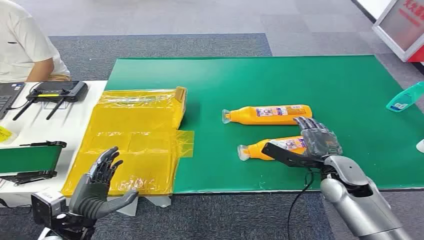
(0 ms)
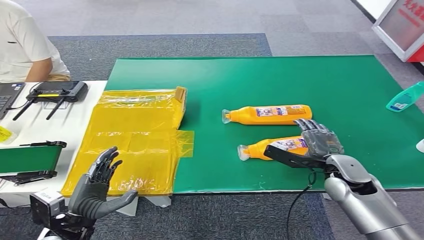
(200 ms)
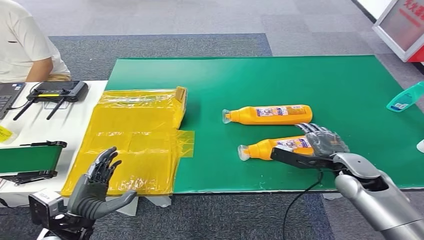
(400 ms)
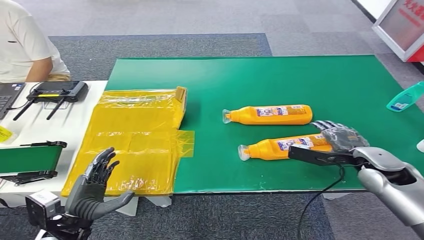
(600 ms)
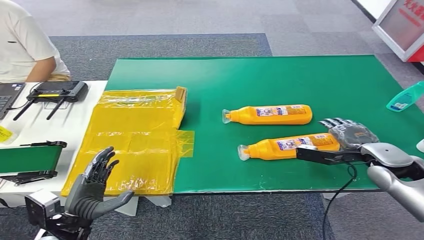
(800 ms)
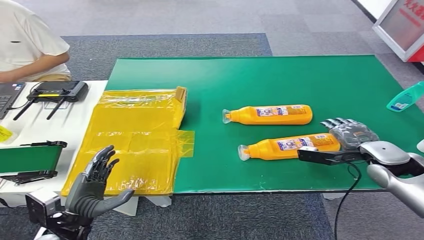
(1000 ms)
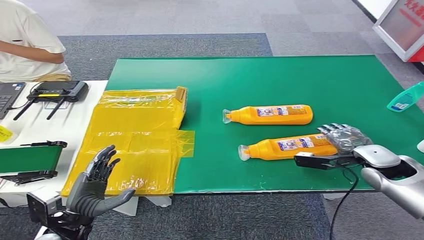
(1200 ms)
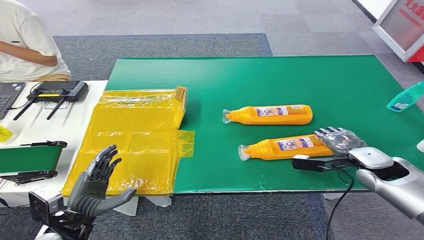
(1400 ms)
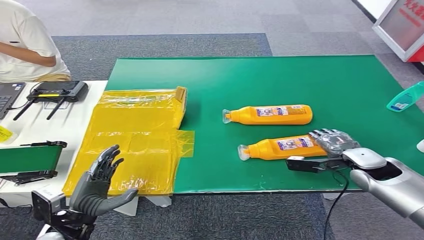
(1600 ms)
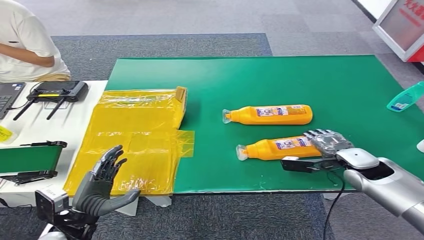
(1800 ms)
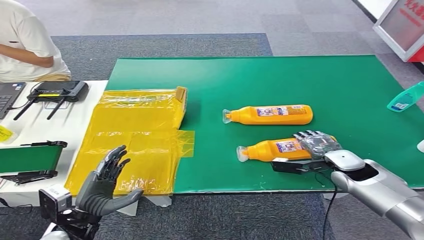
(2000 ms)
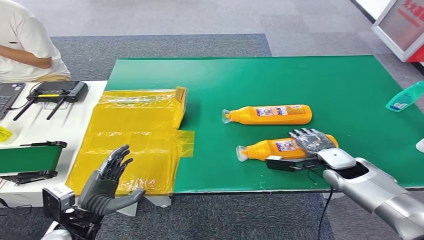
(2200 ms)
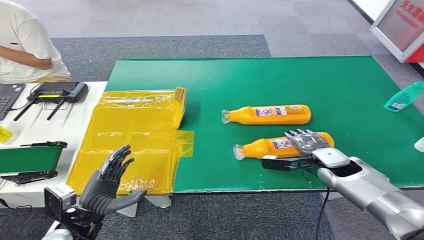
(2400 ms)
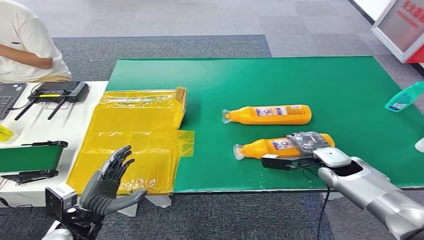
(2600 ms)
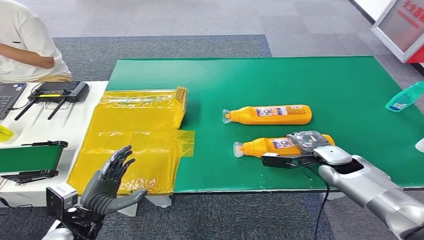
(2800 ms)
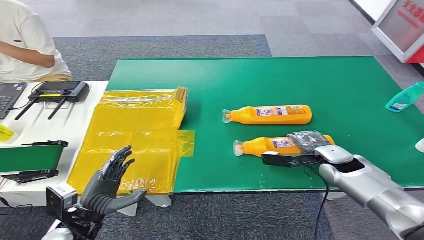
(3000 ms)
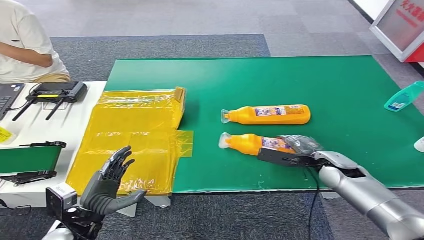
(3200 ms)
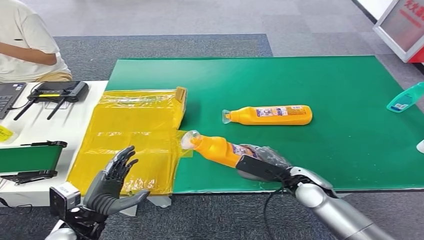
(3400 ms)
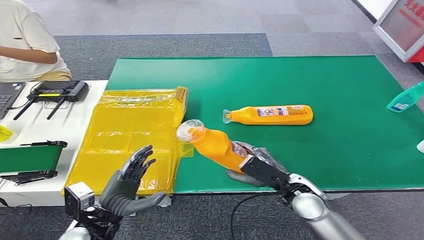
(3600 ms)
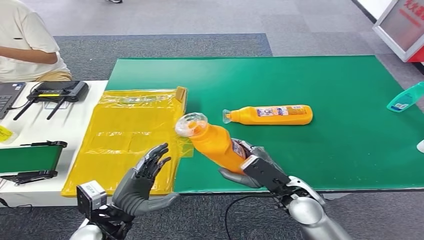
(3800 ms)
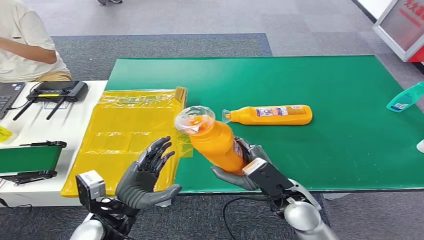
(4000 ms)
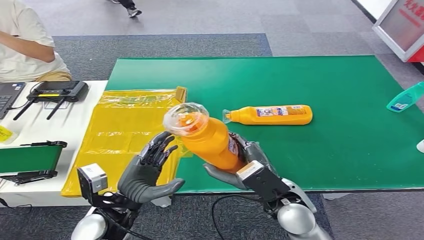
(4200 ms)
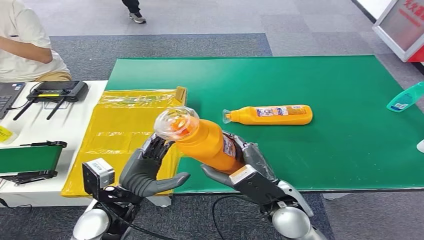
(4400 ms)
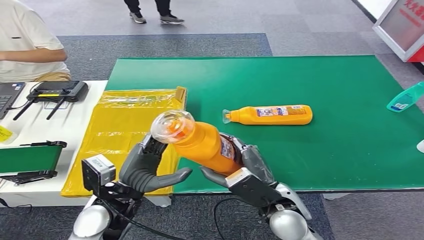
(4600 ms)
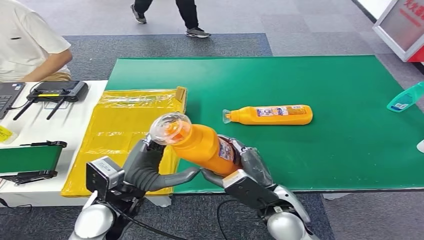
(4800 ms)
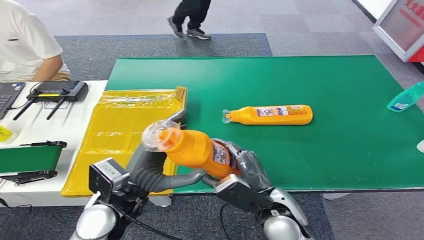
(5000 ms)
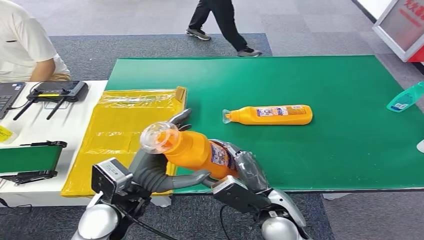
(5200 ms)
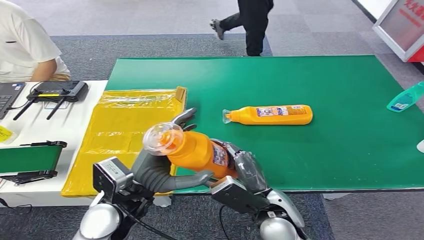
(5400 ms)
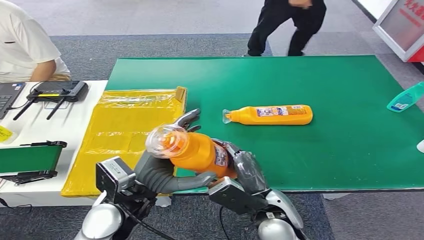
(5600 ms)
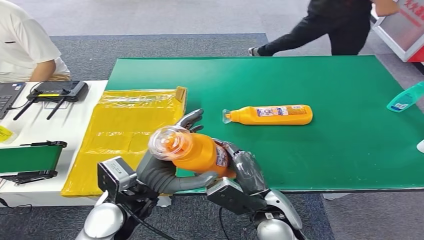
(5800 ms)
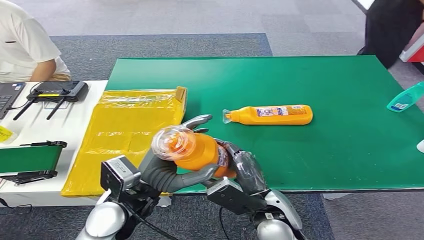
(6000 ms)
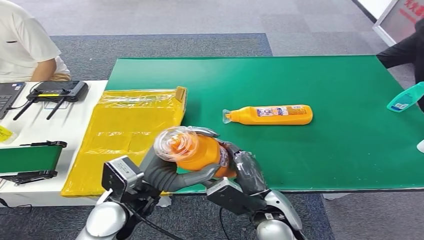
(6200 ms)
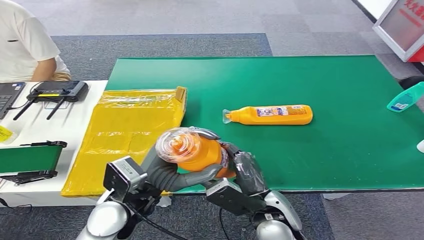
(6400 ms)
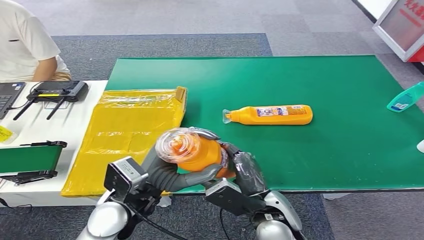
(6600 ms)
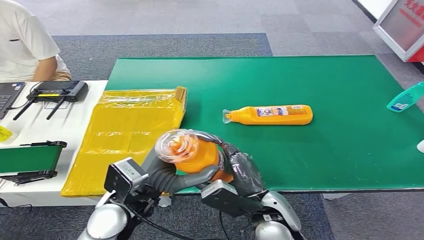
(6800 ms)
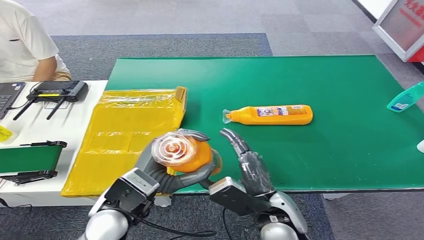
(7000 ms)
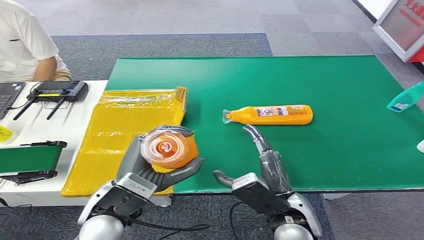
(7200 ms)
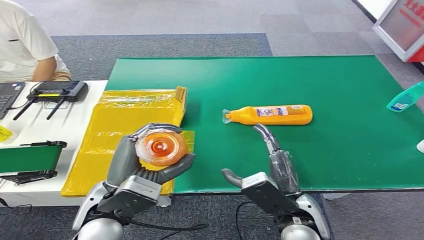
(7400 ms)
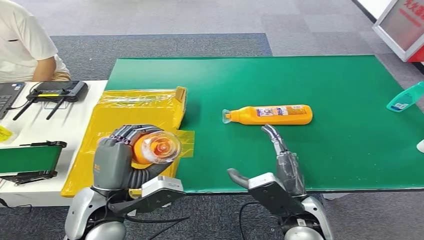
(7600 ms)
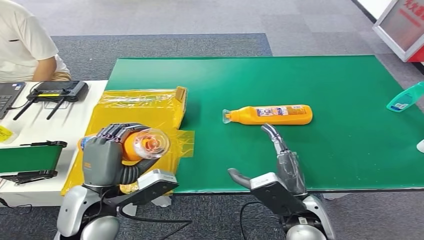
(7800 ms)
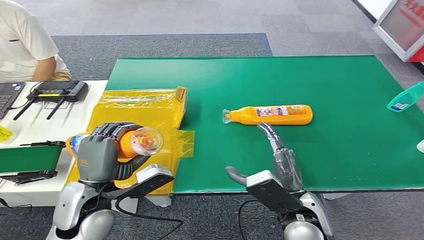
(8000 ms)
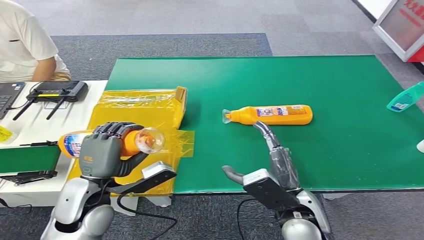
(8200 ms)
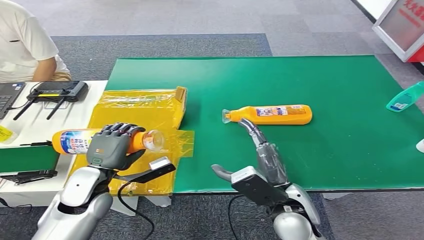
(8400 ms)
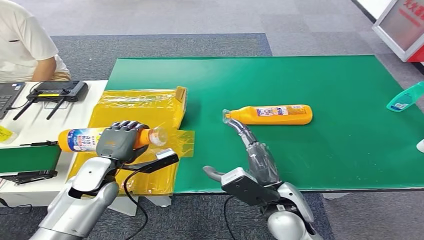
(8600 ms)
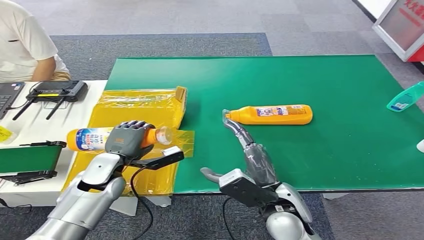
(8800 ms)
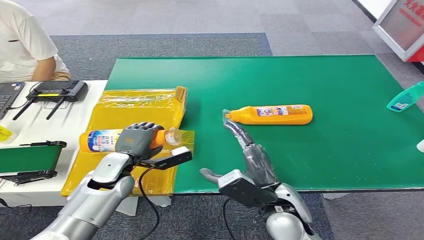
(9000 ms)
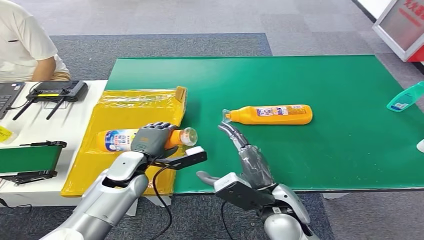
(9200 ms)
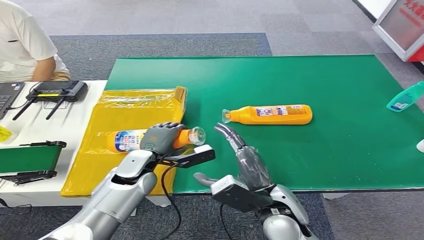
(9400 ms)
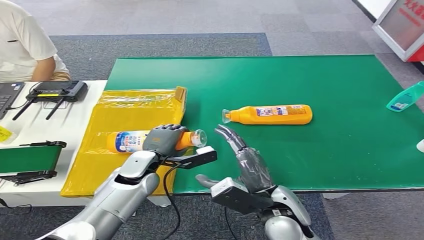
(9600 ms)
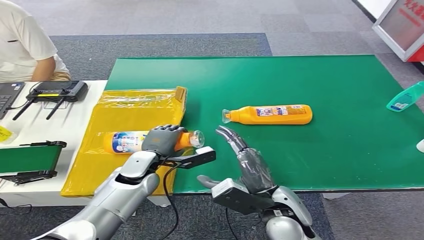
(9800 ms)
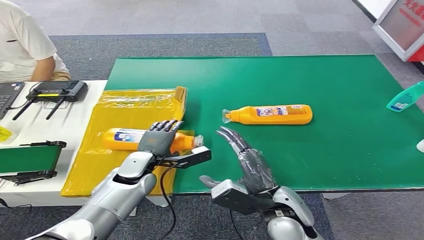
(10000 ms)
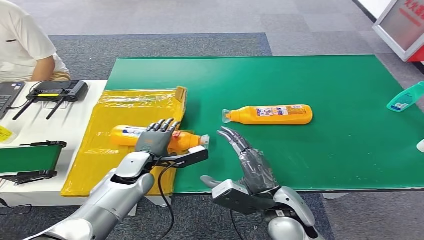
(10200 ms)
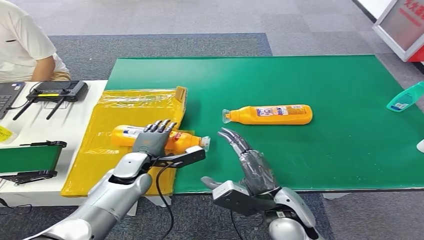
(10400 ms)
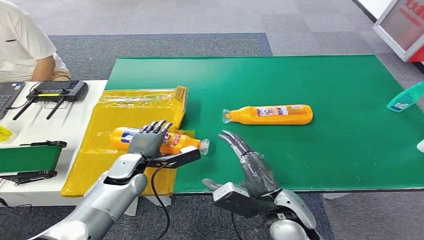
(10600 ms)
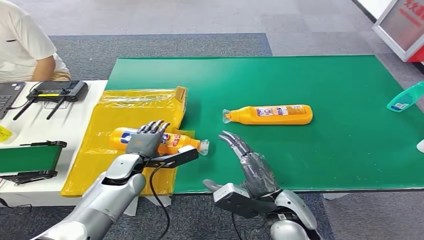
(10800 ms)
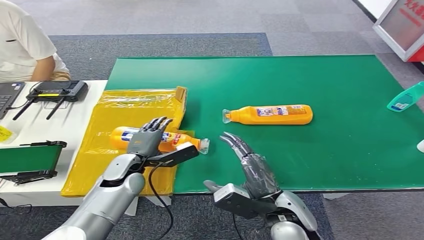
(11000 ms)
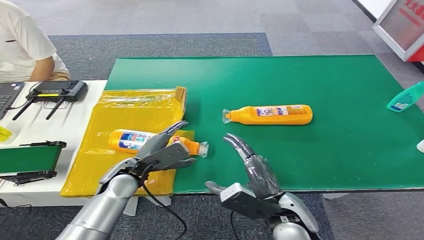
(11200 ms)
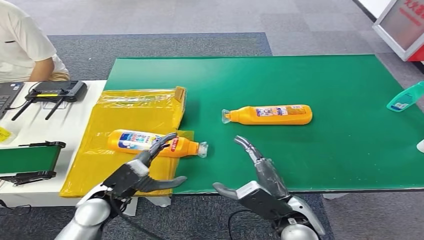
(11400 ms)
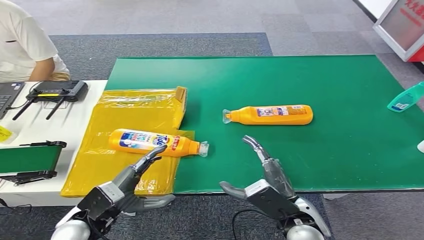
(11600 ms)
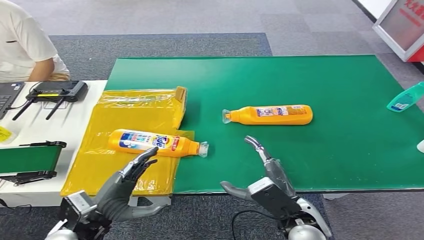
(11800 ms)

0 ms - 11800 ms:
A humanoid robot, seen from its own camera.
Step, 0 ms - 3600 ms: Pick up the bottle from the table.
Step, 3800 ms - 11800 ms: Turn the bottle to the front side.
1400 ms - 3000 ms: The right hand is displaced to the left by some 5 cm.
4400 ms - 6000 ms: The left hand moves upward, approximately 5 cm.
7400 ms - 8800 ms: The left hand goes some 15 cm forward, downward and to the left.
8800 ms - 10400 ms: The left hand goes some 5 cm to the right.
10400 ms - 11800 ms: The left hand travels backward by roughly 15 cm.
